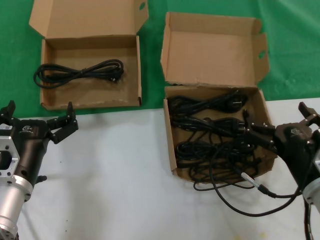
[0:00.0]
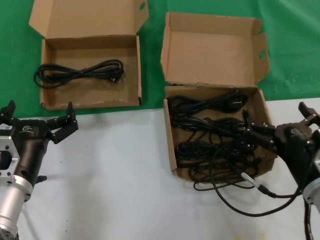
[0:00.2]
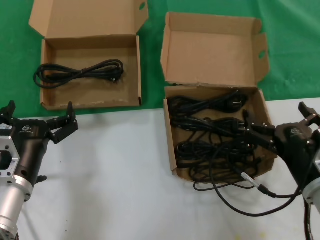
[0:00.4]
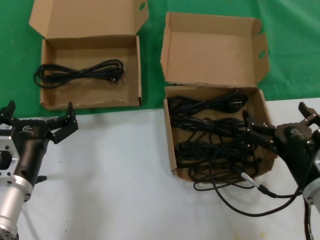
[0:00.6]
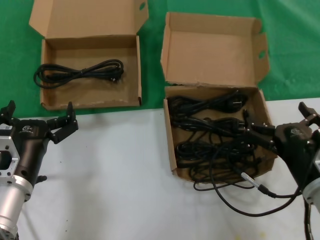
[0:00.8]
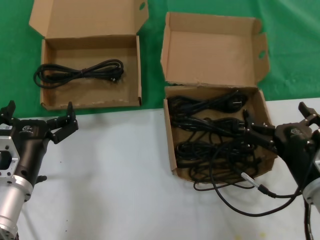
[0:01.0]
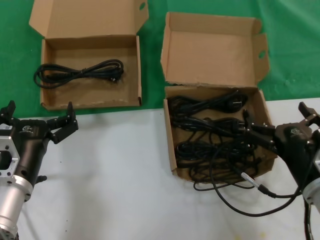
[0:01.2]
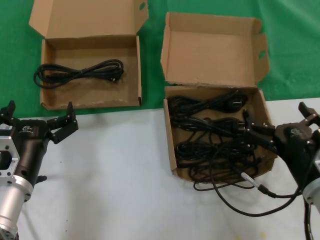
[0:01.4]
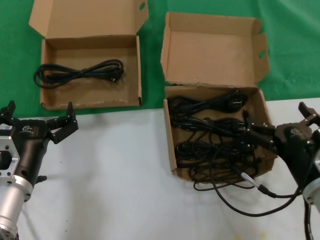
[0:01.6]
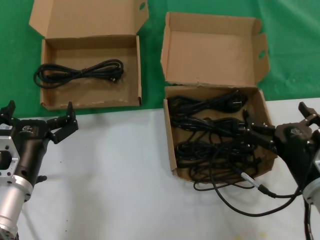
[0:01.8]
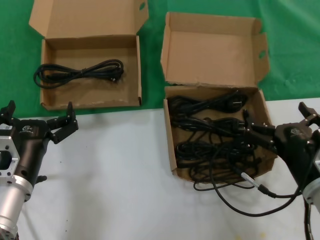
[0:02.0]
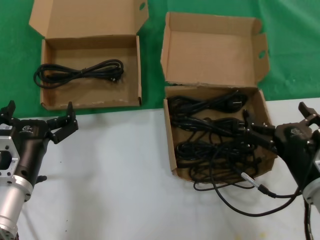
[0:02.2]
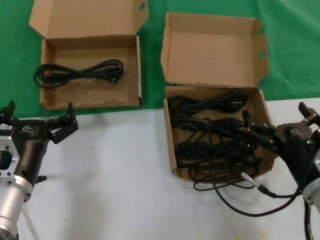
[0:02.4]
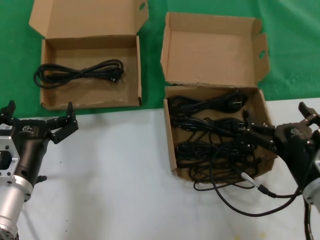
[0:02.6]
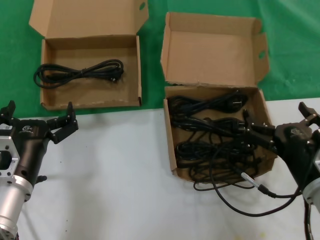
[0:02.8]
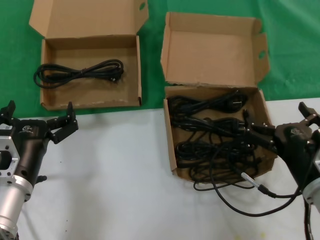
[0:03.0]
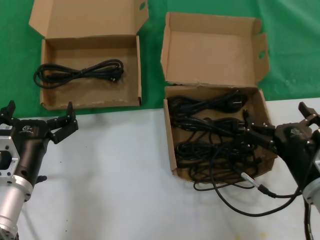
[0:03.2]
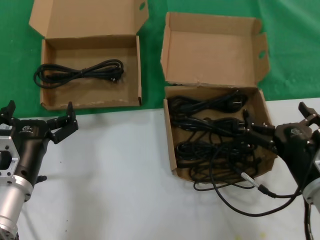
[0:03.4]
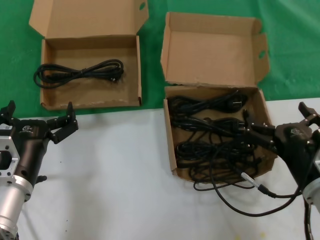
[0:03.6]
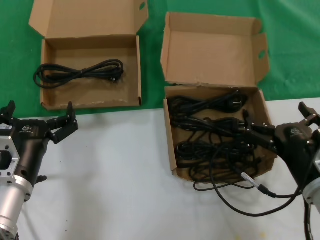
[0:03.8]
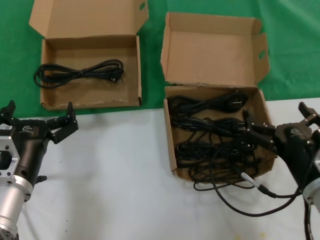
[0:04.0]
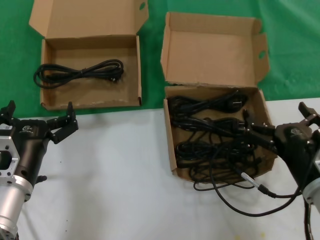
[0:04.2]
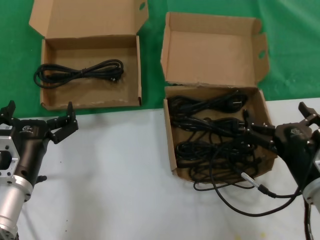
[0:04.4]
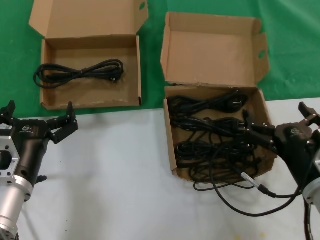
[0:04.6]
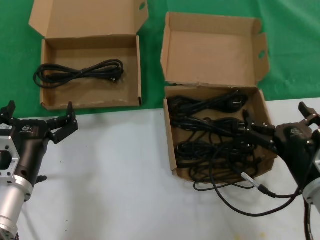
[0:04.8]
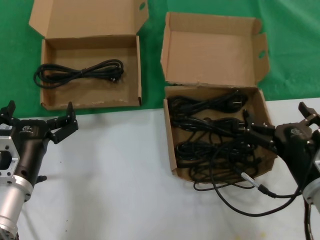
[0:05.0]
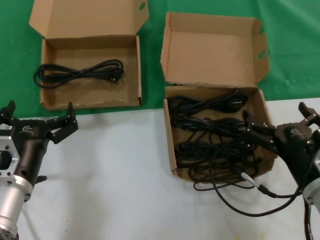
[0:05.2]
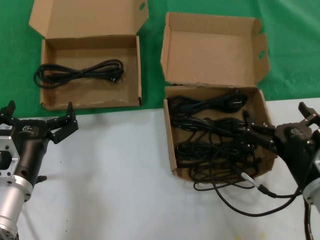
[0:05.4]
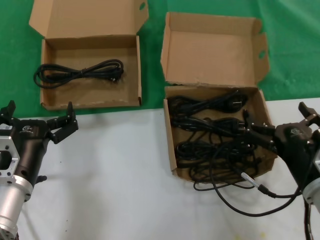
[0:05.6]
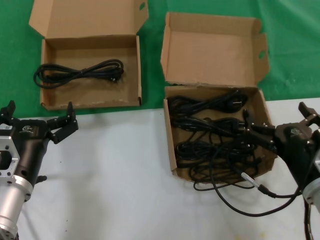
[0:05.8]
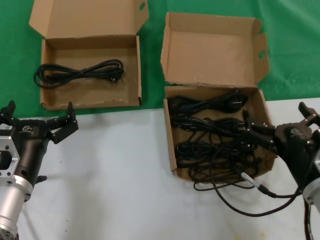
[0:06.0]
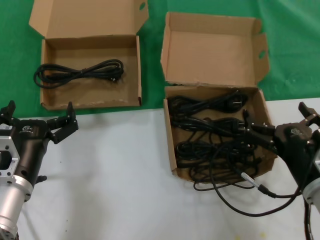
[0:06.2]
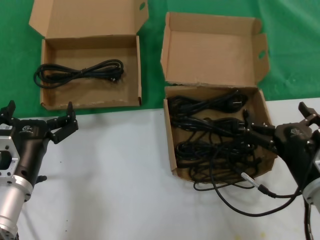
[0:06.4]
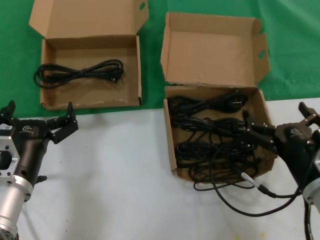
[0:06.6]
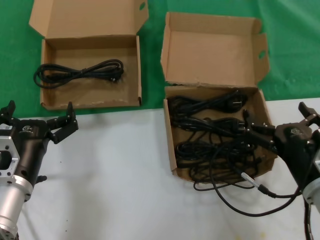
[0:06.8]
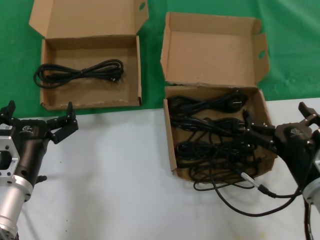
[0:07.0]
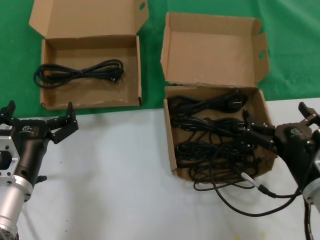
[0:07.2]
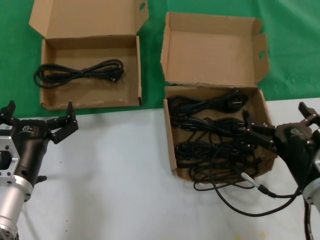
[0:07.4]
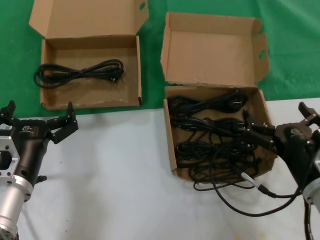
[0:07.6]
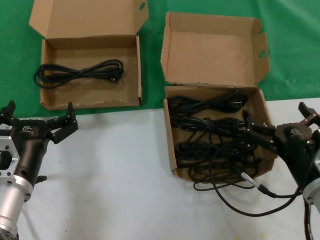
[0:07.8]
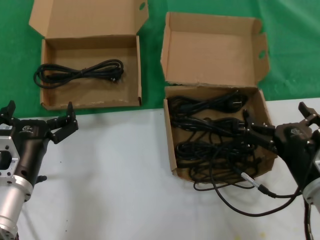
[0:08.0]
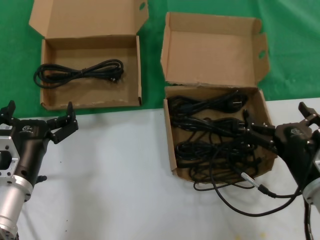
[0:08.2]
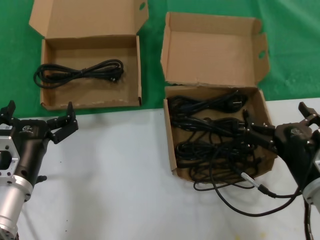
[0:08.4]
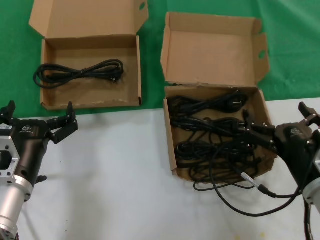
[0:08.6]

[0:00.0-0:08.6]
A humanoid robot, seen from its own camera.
Task of the whole recording: take the parts from the box containing them and put them into an empty box.
0:00.0 to 0:08.6: Both hands stay put.

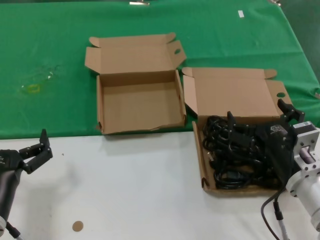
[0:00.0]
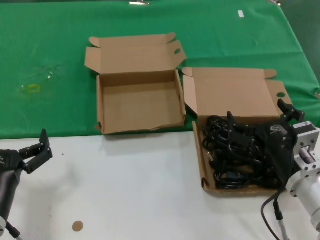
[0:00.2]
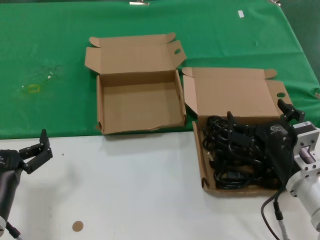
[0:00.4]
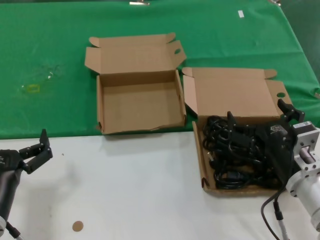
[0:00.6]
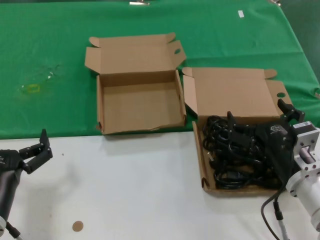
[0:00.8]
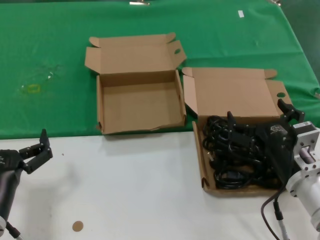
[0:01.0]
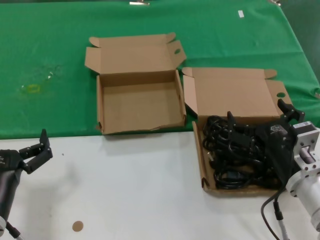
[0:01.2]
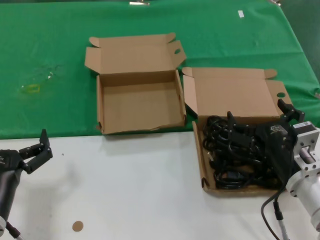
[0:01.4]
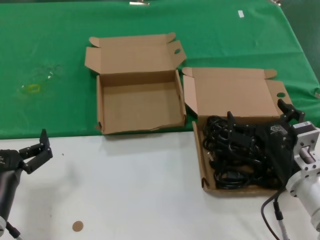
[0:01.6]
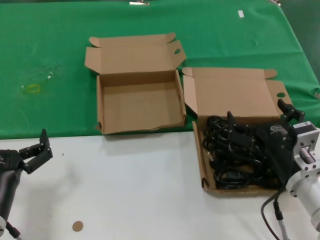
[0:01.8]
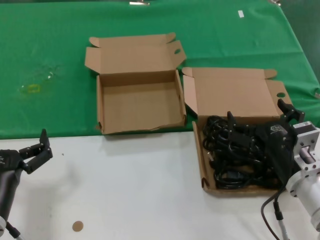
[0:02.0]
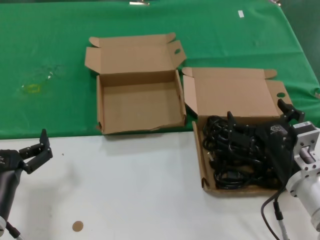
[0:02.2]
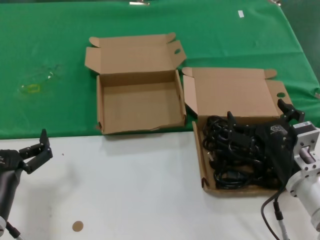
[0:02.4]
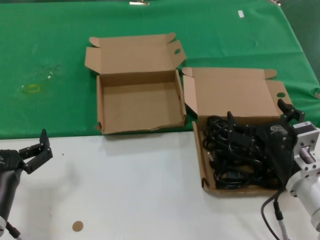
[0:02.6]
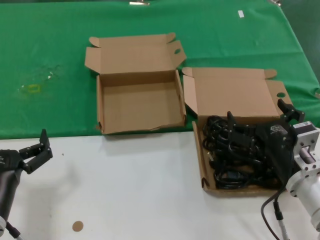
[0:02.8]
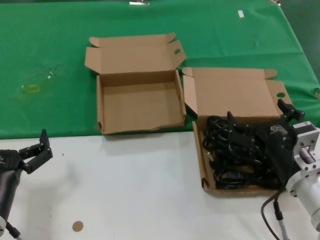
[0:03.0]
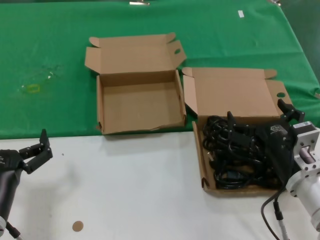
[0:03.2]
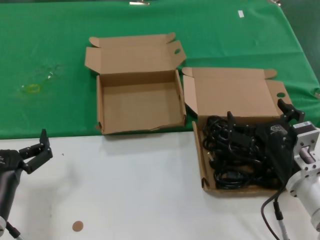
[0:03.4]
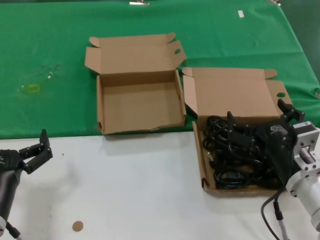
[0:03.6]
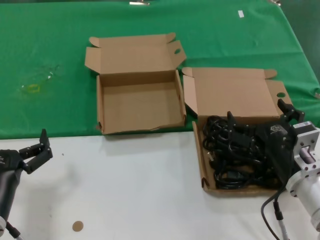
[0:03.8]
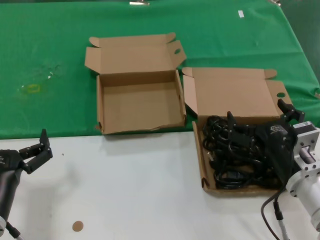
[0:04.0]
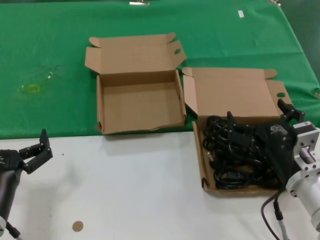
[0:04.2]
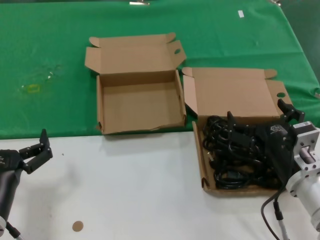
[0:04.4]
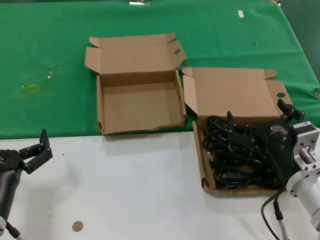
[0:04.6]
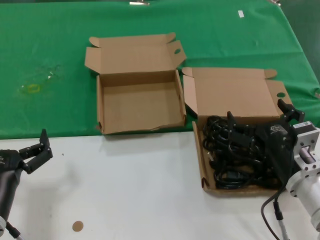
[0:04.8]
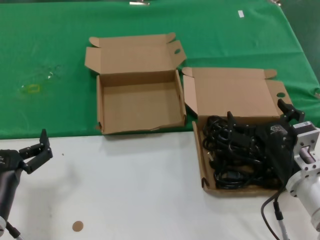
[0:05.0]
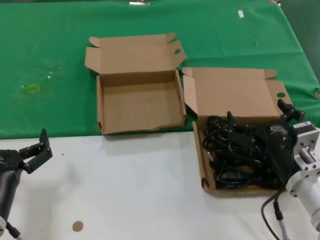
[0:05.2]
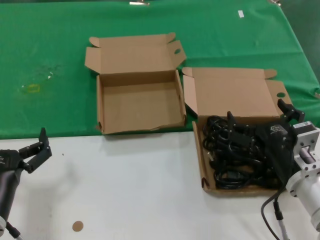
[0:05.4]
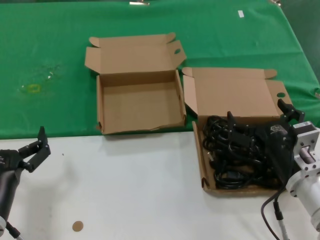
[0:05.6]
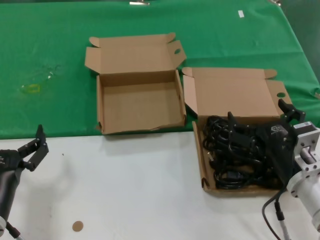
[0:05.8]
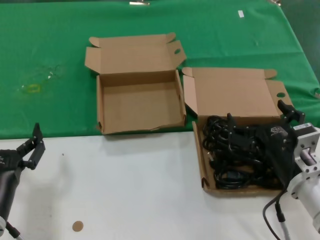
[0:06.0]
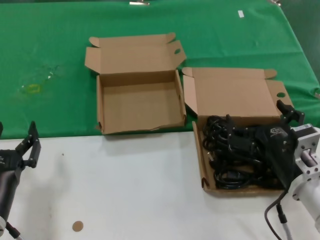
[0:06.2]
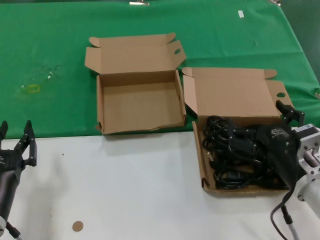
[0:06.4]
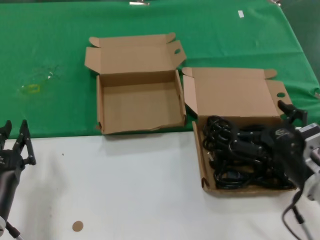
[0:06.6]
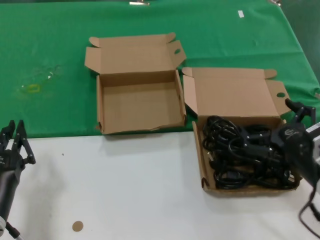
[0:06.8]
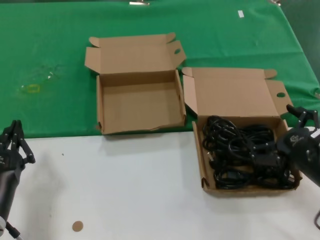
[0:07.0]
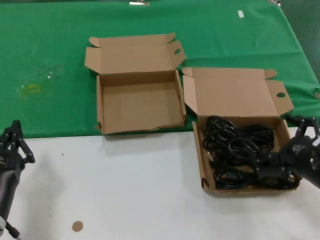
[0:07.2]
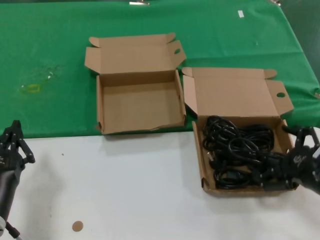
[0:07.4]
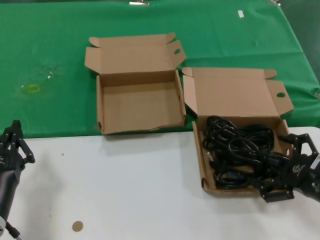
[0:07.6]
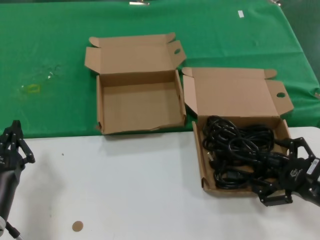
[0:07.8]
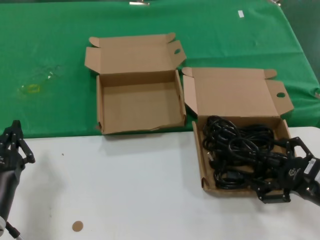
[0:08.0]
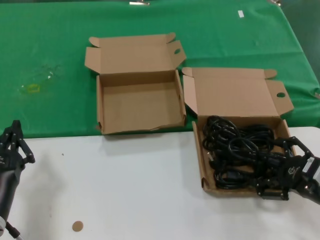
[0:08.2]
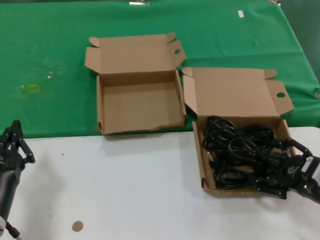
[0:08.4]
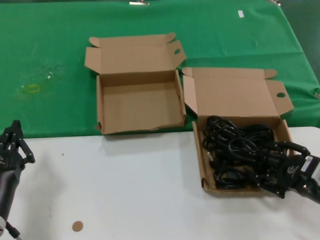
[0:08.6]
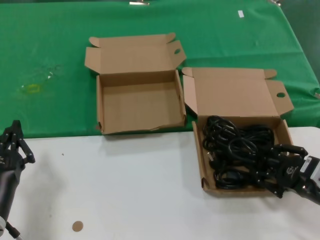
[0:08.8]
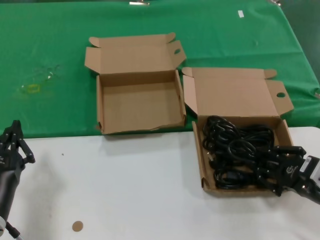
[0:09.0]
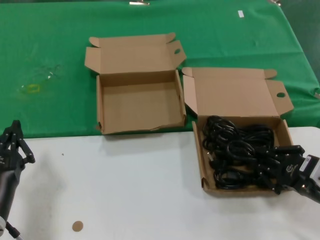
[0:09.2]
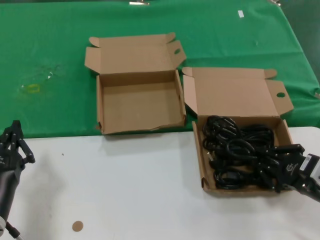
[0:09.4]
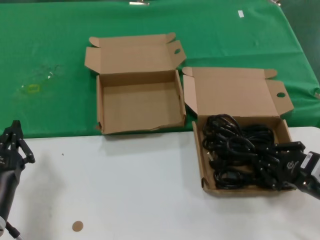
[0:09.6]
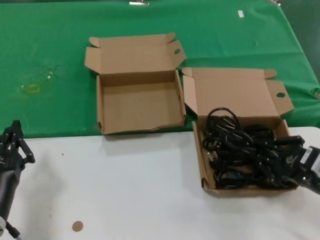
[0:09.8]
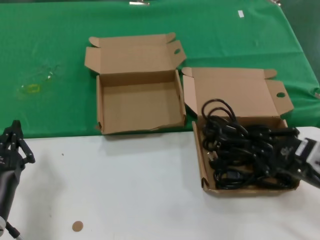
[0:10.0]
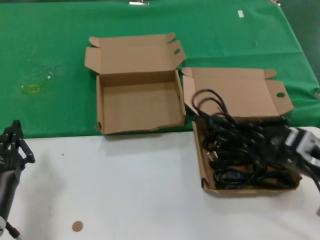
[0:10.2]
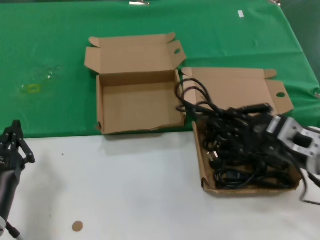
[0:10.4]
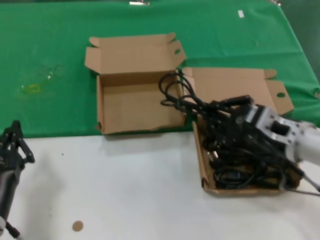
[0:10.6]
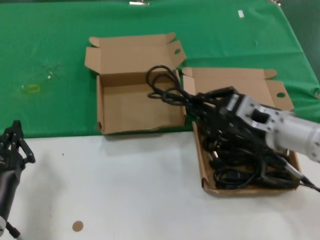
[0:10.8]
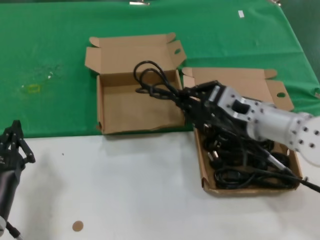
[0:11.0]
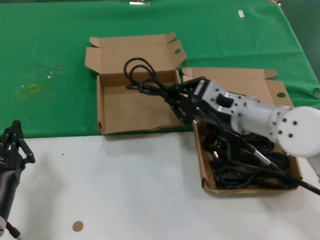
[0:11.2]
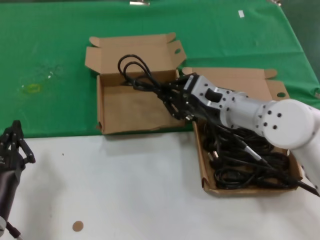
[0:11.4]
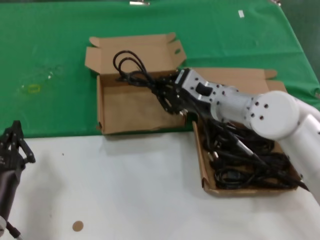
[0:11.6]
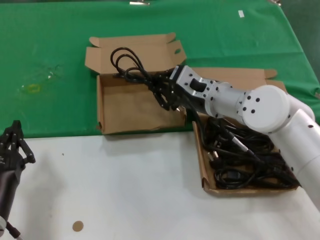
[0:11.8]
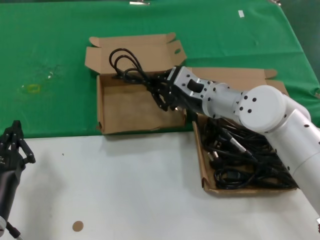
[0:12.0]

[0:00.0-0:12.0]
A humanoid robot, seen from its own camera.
Task of the whole recording: take the parts from the box containing them and put them into an empty box.
Step, 0:00.0 to 0:09.0: Grasp the data cable.
0:00.0 to 0:06.0: Both hands stay about where they are.
0:06.0 to 0:07.6: The right hand goes some 10 cm to the right.
0:07.6 to 0:09.0: The hands move only a little.
0:09.0 to 0:10.4: The right hand moves upward, approximately 5 cm.
0:10.4 to 0:12.0: The right hand is displaced forward and to the left by approximately 20 cm.

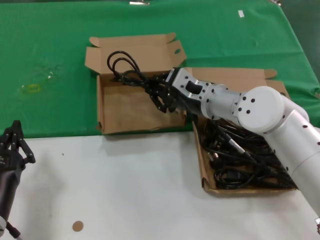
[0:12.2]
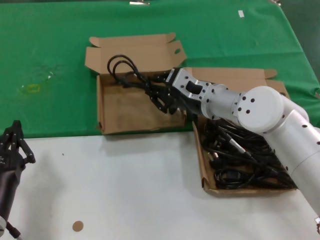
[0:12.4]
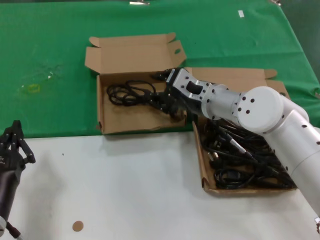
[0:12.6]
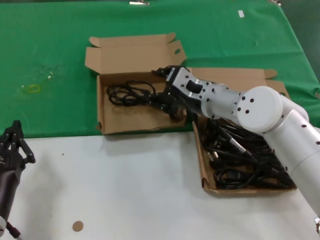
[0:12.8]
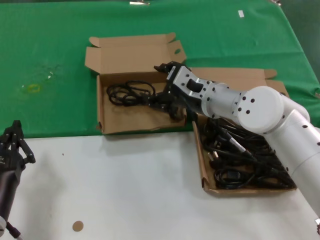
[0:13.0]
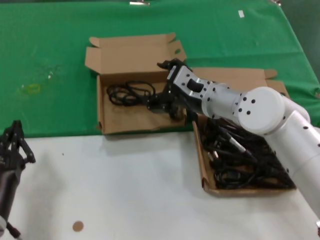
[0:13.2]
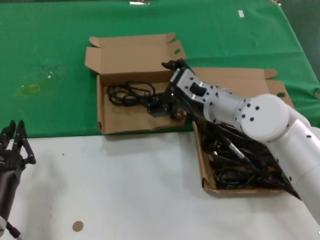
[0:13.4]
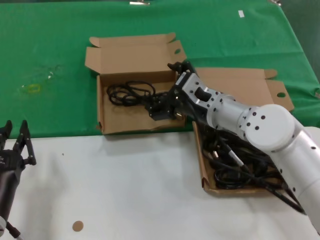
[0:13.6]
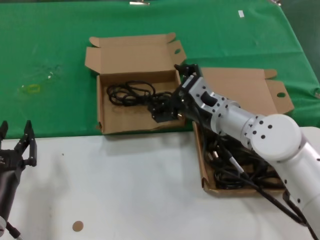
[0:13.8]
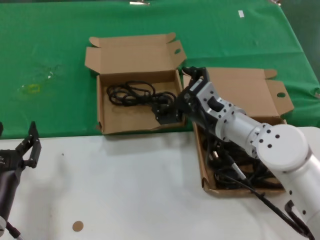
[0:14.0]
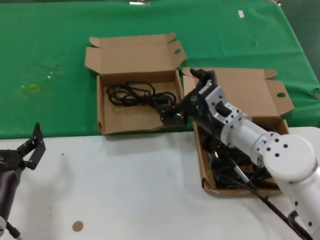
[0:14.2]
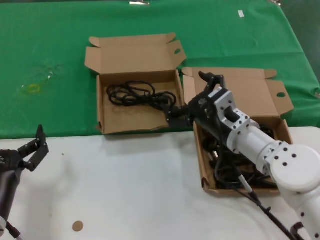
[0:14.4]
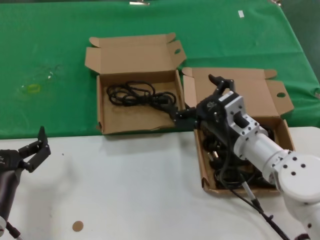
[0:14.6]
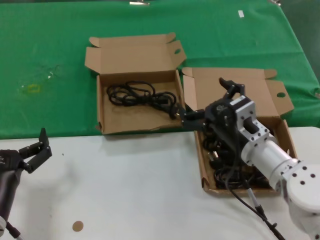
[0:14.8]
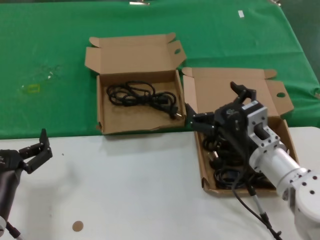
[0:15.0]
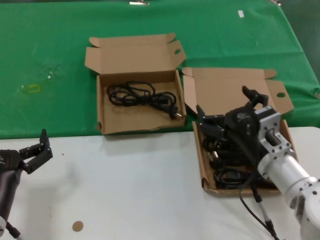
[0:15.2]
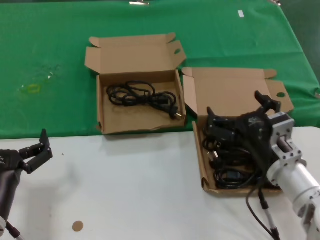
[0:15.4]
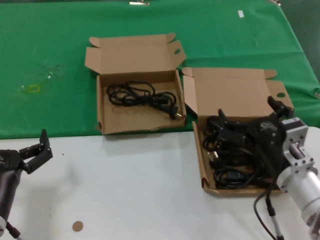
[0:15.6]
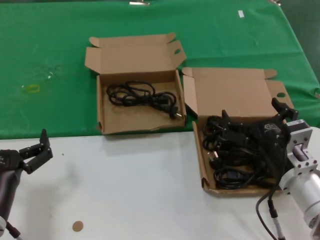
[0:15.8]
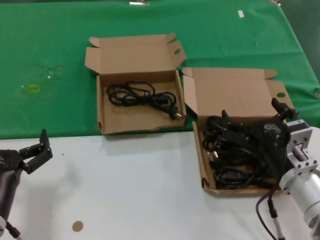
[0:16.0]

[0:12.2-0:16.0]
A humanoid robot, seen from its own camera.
Task of the whole recording: take the parts from the box containing them and put them into an empty box.
0:12.2 to 0:13.4: The two hands keep their place.
0:13.4 to 0:14.8: The right hand shifts approximately 10 cm backward and downward.
0:14.8 to 0:16.0: The right hand is displaced backward by some 10 cm.
